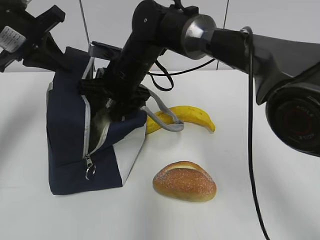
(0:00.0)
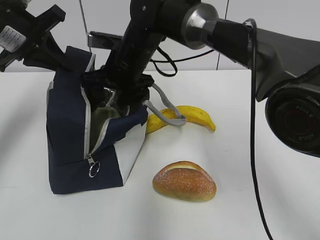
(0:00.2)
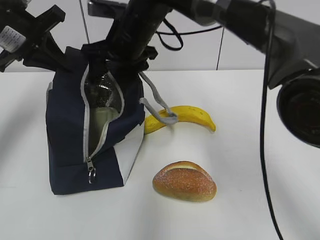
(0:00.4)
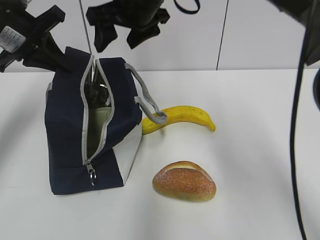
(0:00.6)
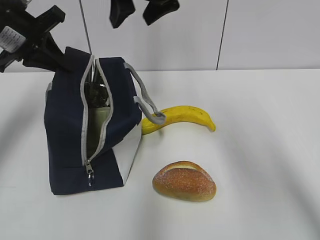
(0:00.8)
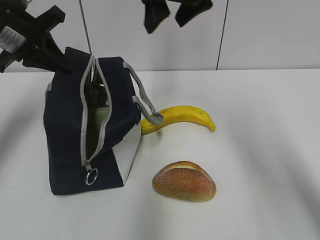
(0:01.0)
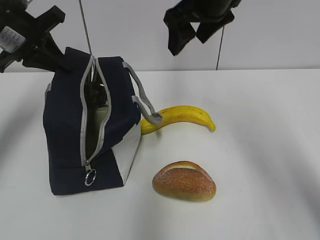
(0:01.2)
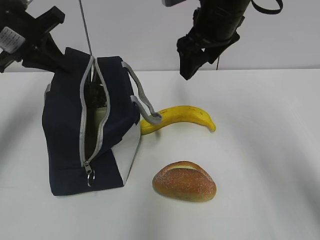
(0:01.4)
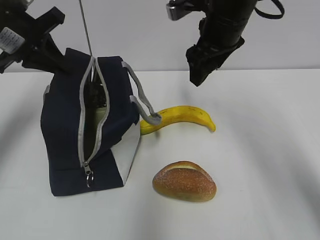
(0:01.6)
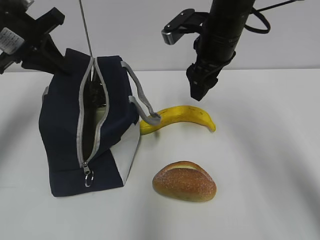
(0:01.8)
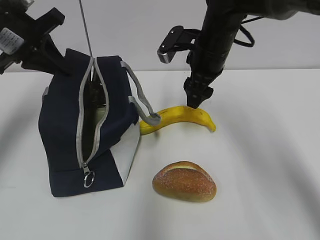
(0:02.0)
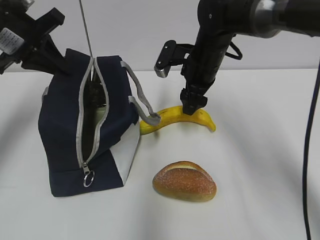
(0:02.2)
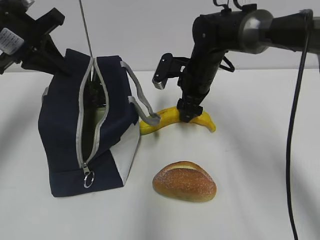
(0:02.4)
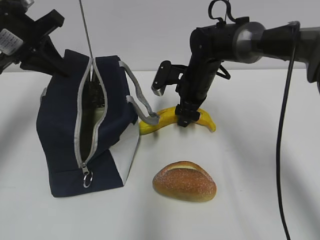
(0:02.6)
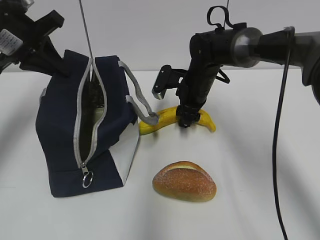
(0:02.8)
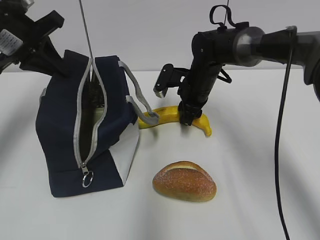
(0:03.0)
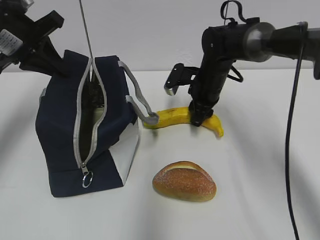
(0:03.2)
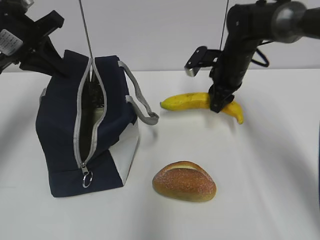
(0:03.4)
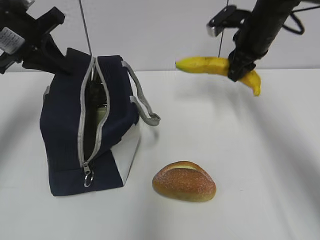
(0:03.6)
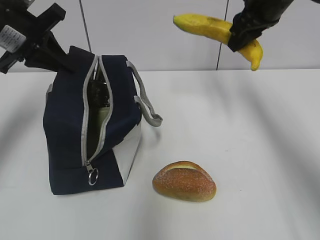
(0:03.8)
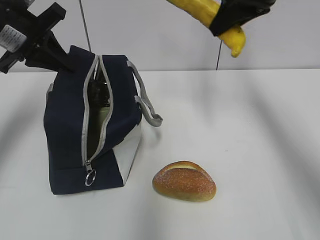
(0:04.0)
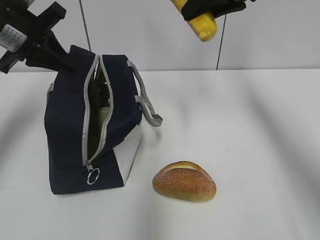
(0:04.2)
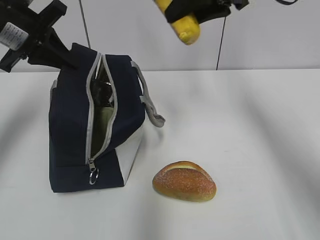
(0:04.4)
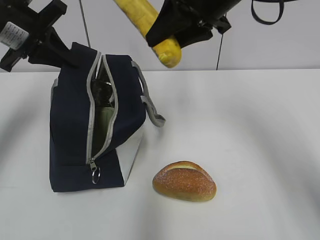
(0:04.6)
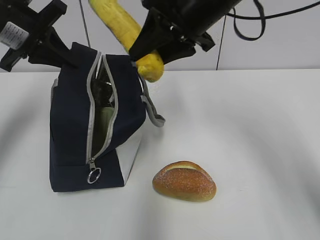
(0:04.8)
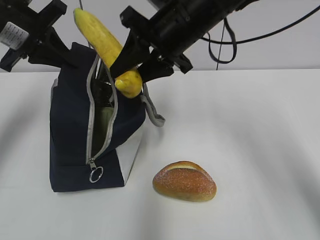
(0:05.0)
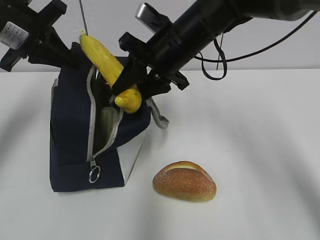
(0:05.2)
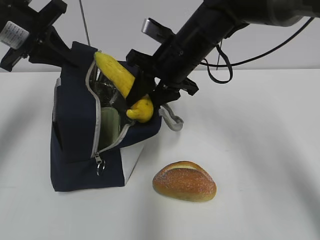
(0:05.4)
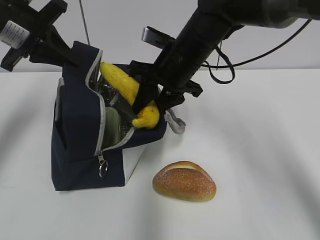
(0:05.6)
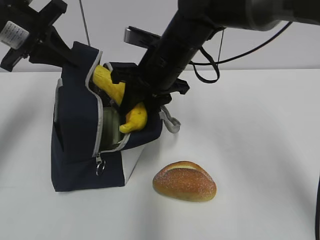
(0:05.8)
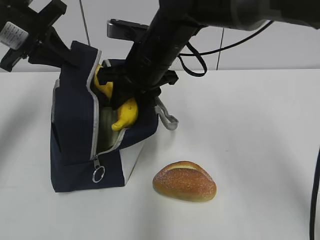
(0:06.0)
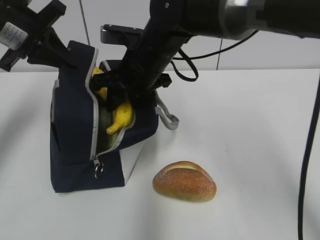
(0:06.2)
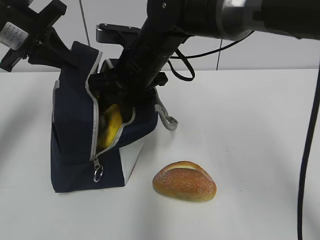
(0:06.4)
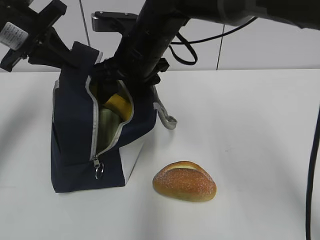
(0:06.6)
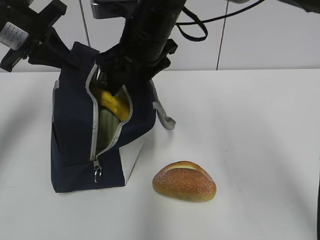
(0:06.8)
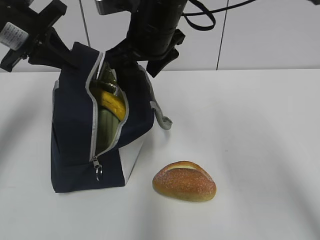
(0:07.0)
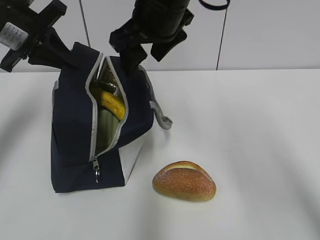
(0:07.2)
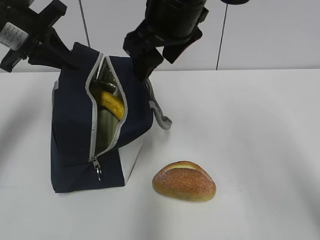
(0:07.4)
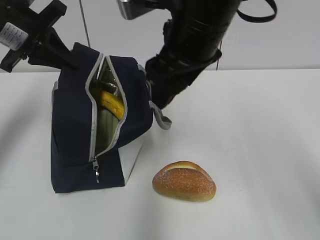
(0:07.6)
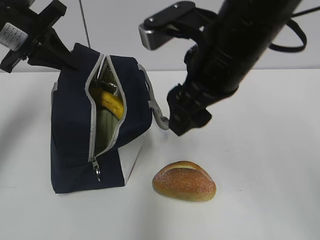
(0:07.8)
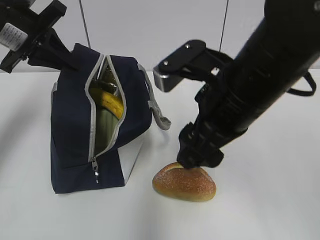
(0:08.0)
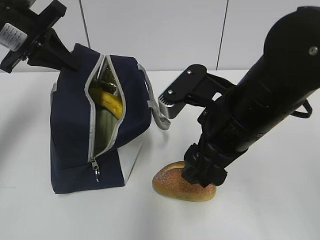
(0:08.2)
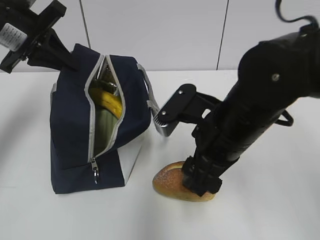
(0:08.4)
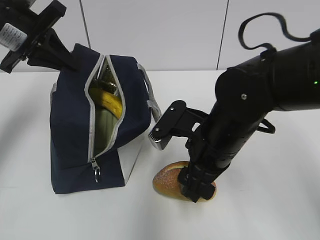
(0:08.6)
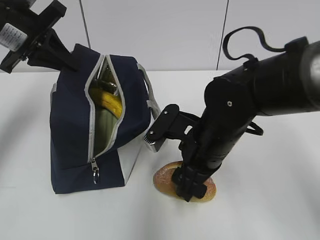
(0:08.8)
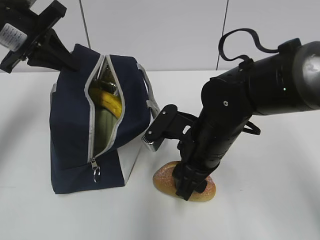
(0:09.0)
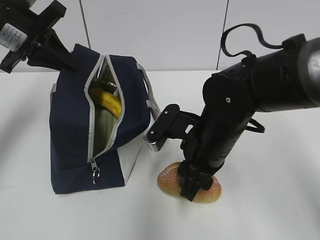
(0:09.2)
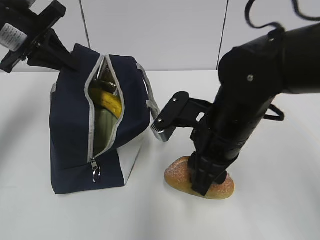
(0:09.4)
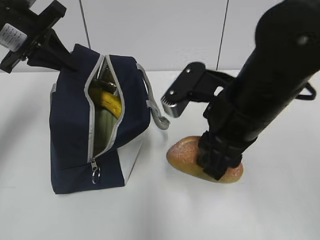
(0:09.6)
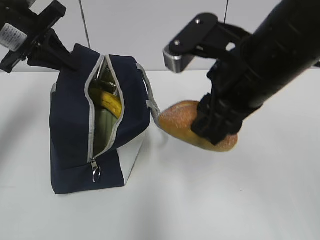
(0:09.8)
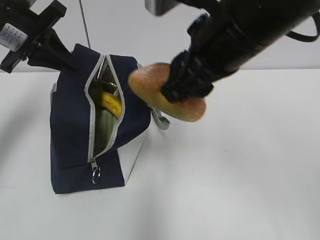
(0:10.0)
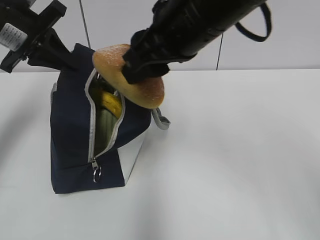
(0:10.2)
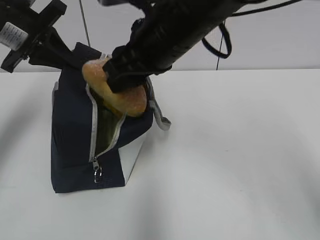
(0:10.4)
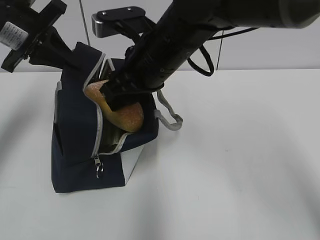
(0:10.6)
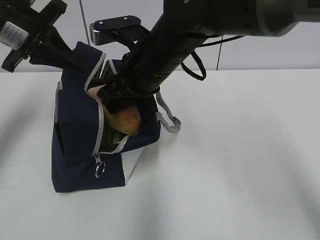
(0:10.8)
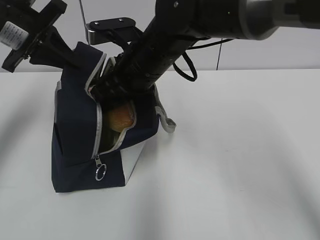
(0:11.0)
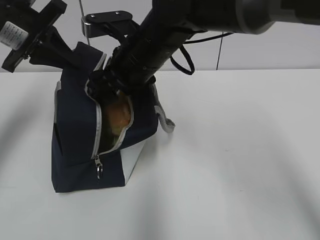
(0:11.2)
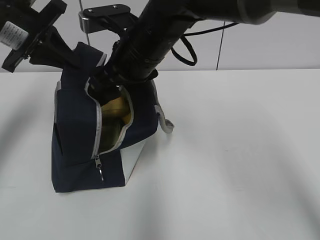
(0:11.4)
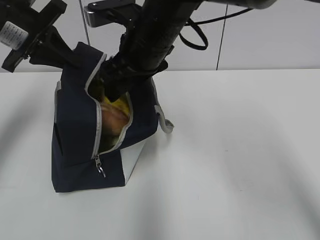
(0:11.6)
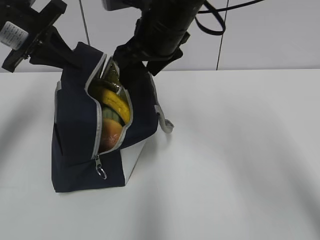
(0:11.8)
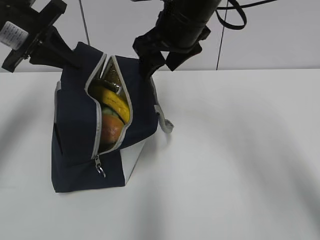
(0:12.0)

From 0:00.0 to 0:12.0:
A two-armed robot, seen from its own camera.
From 0:00.0 to 0:01.6: The right gripper moves to the right and upward, about 20 cm.
From 0:01.6 to 0:03.0: The right gripper goes some 15 cm downward and forward, and closes up.
From 0:03.0 to 0:04.4: The right gripper shifts roughly 25 cm upward.
From 0:04.4 to 0:06.0: The right gripper is displaced to the left and downward by some 20 cm.
From 0:06.0 to 0:07.6: The right gripper travels upward, backward and to the right by about 10 cm, and opens up.
From 0:07.6 to 0:09.0: The right gripper shifts roughly 15 cm downward.
From 0:09.0 to 0:10.4: The right gripper heads upward, covering roughly 15 cm.
From 0:10.4 to 0:12.0: The right gripper heads forward, covering about 5 cm, and opens up.

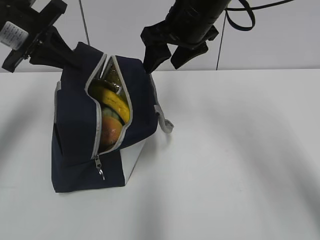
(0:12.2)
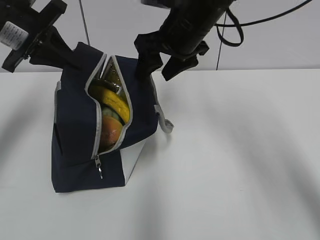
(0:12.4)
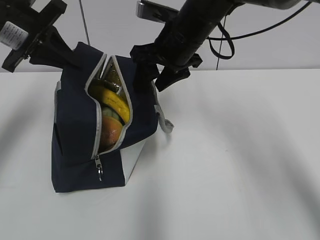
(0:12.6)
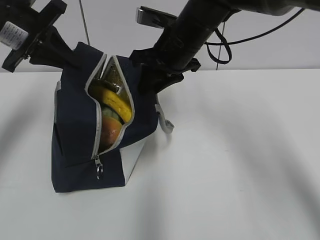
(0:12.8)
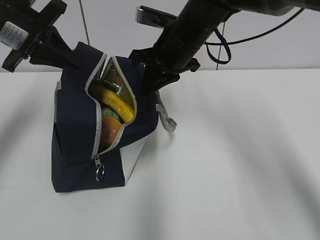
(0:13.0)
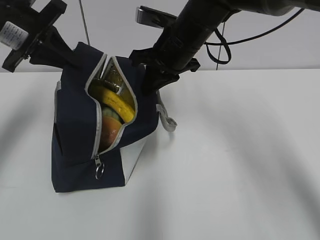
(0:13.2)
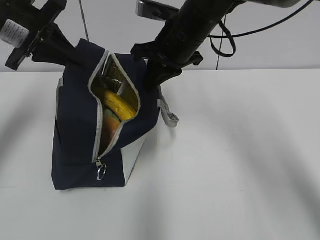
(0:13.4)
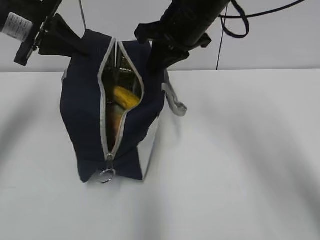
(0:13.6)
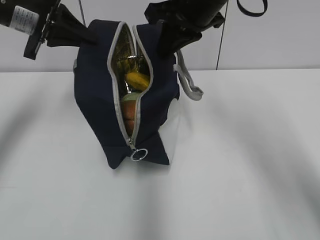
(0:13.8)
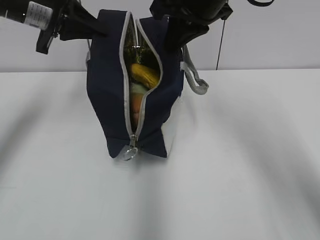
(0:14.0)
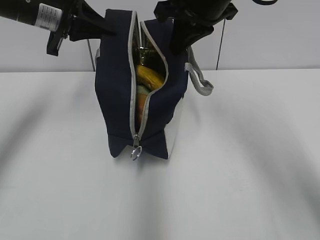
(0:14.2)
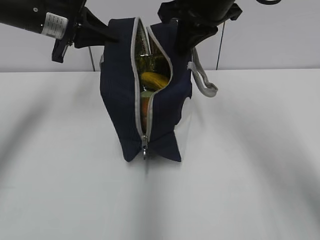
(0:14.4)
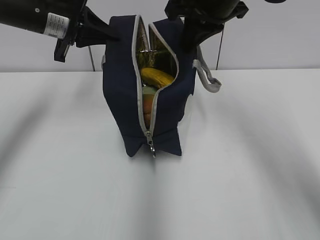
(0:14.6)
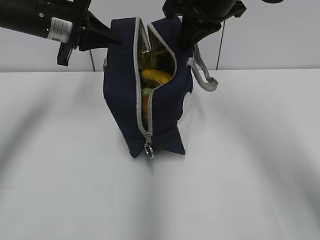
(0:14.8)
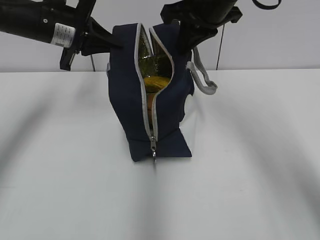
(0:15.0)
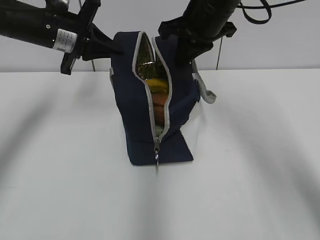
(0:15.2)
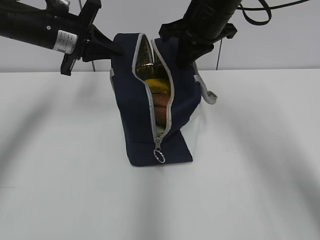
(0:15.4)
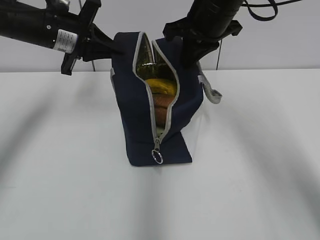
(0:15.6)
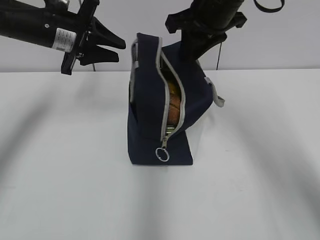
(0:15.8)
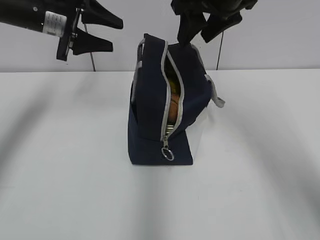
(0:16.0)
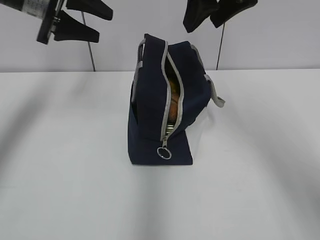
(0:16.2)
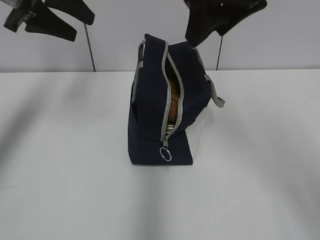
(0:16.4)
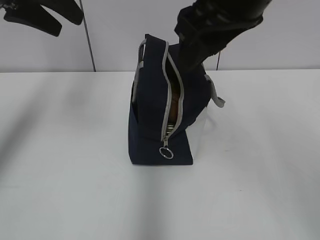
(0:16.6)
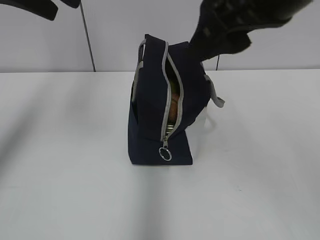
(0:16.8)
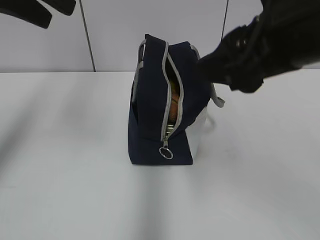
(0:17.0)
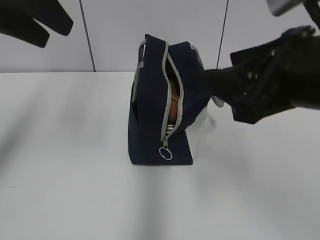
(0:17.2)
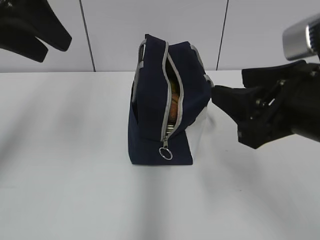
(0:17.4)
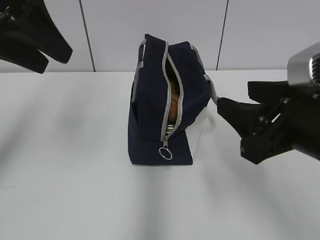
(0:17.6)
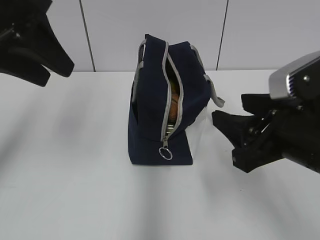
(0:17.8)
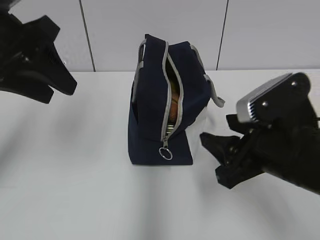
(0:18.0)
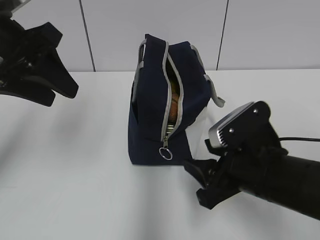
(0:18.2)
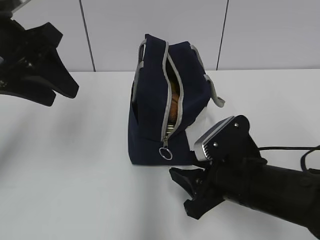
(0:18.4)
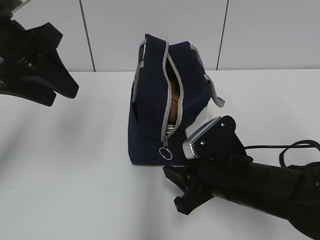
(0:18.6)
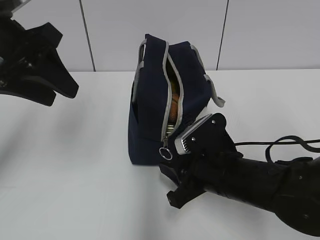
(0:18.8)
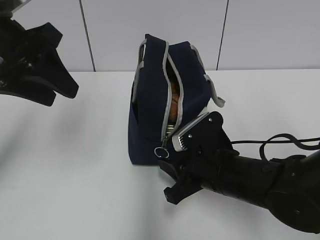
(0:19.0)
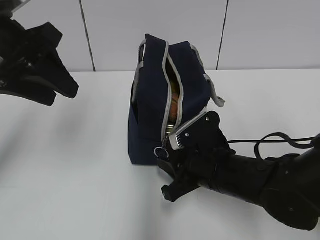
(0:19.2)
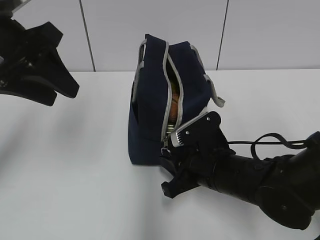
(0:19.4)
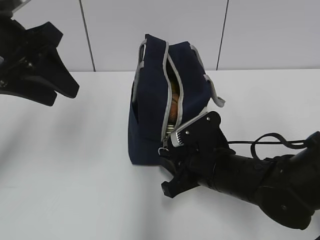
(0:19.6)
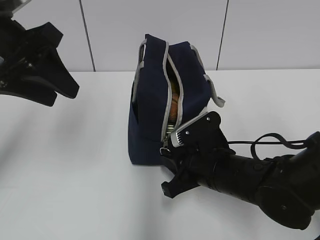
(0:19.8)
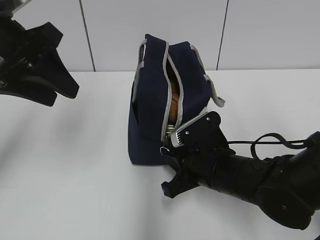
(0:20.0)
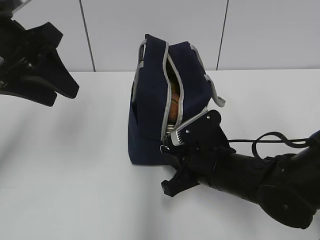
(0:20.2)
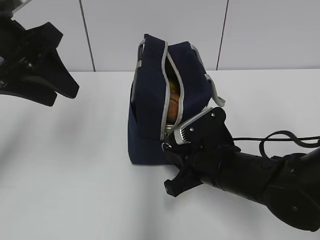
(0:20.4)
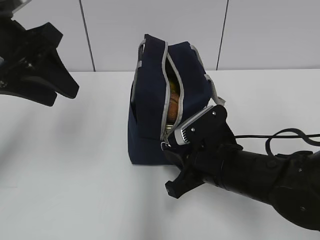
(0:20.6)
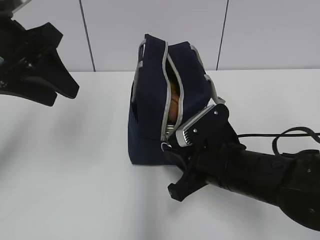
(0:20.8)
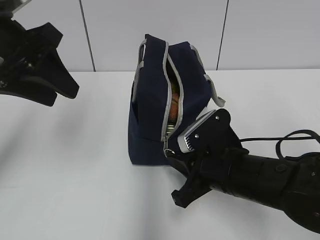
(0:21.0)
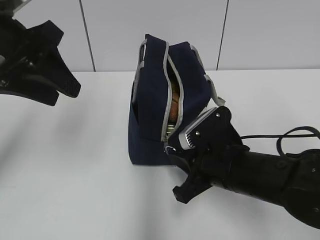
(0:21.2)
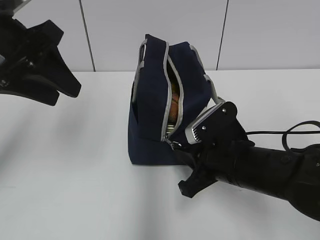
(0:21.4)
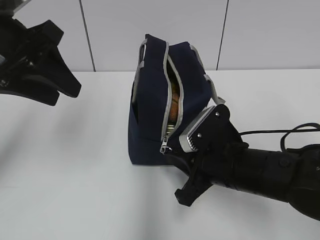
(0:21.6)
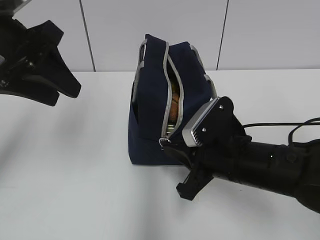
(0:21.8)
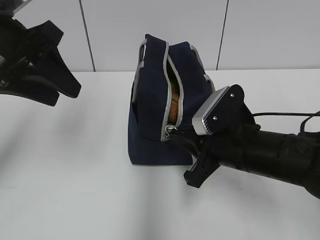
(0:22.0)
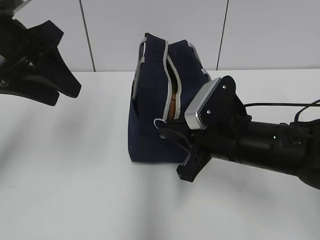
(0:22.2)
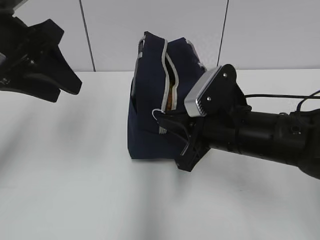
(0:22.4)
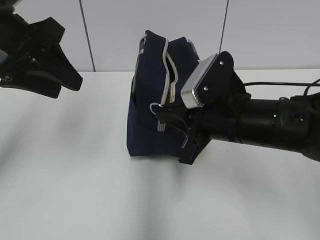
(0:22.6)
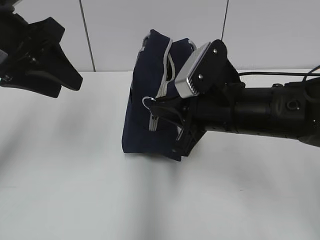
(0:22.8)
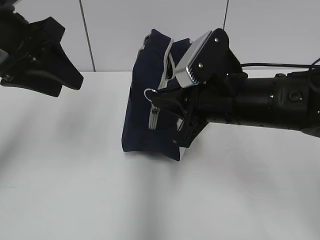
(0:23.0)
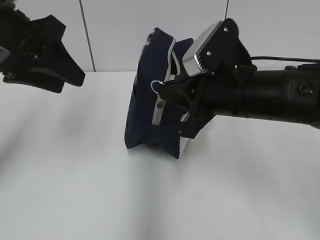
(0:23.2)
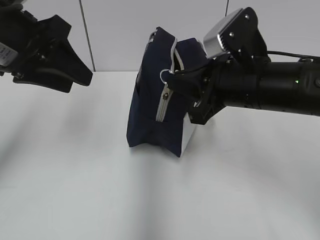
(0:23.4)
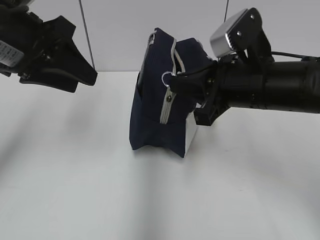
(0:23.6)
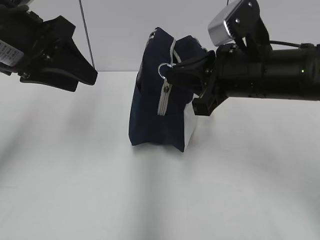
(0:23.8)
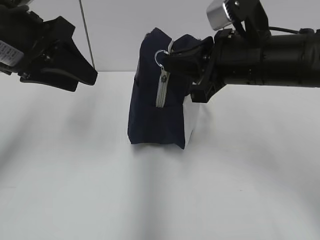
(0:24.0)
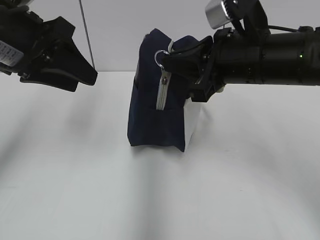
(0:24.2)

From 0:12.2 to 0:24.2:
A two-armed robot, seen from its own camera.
From 0:12.2 to 0:13.8: The right gripper closes its fingers.
From 0:13.8 to 0:15.2: The left gripper changes place by some 5 cm.
From 0:15.2 to 0:16.6: The left gripper shifts roughly 15 cm upward and backward, and opens its fingers. The right gripper heads backward and upward, covering some 15 cm, and opens.
From 0:16.6 to 0:18.2: The left gripper goes approximately 10 cm backward and downward, while the right gripper is displaced downward by some 20 cm.
From 0:18.2 to 0:19.8: The right gripper is displaced downward and forward by about 10 cm, and closes.
From 0:19.8 to 0:21.2: There are only small adjustments of the grippers.
From 0:21.2 to 0:22.6: The right gripper moves upward, approximately 5 cm.
From 0:22.6 to 0:24.2: The right gripper travels upward by some 5 cm.
